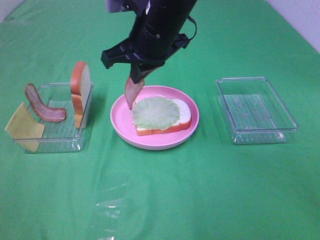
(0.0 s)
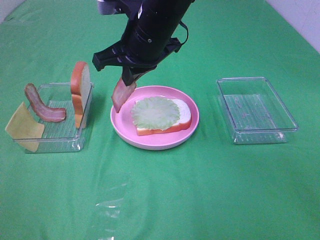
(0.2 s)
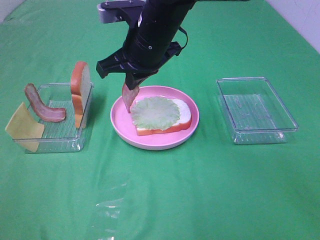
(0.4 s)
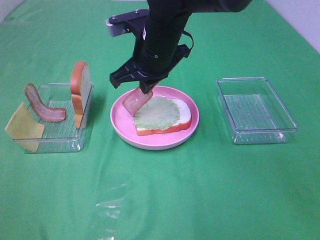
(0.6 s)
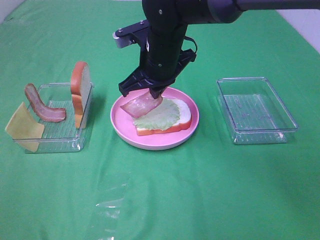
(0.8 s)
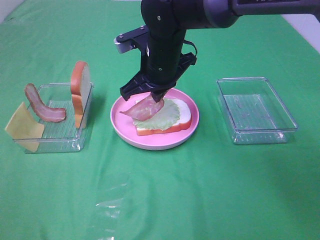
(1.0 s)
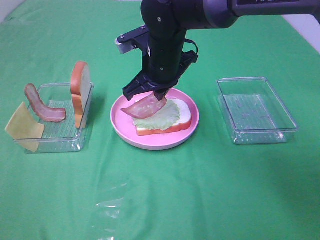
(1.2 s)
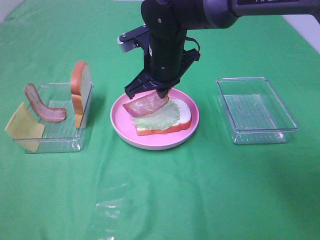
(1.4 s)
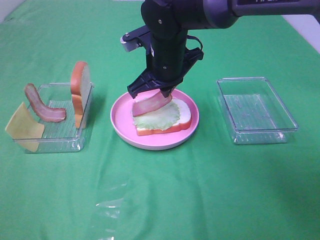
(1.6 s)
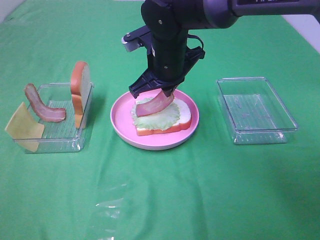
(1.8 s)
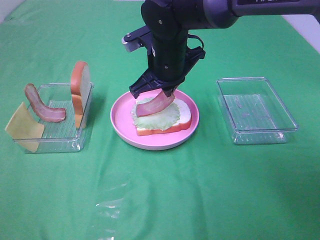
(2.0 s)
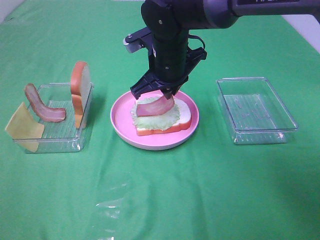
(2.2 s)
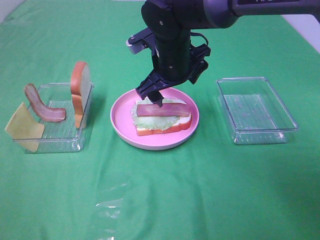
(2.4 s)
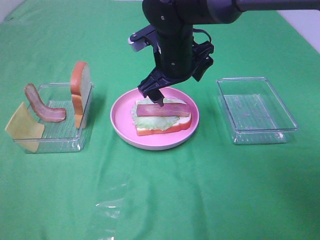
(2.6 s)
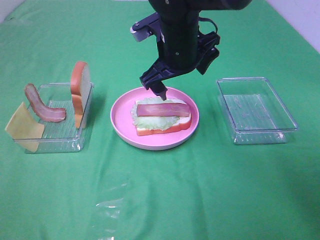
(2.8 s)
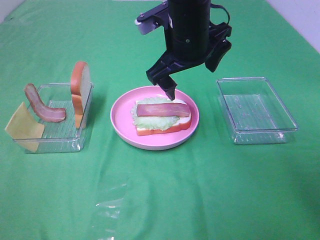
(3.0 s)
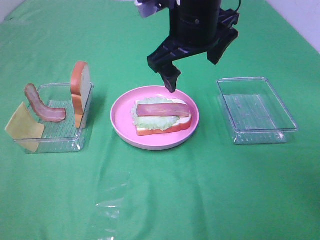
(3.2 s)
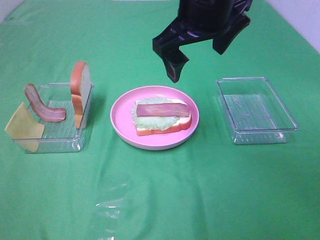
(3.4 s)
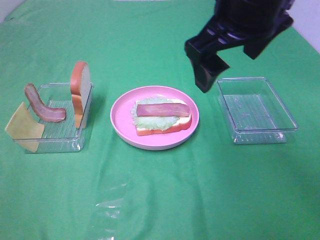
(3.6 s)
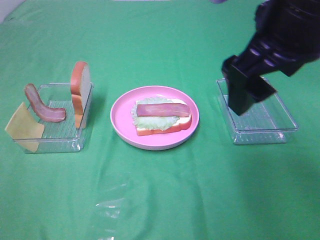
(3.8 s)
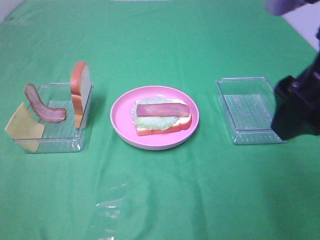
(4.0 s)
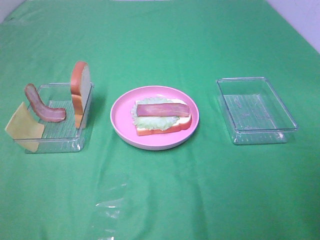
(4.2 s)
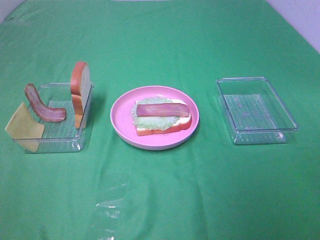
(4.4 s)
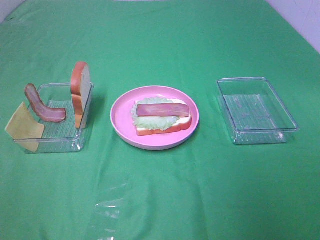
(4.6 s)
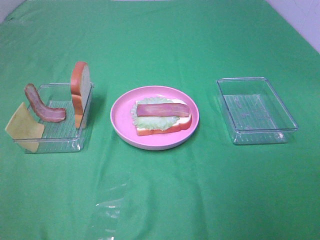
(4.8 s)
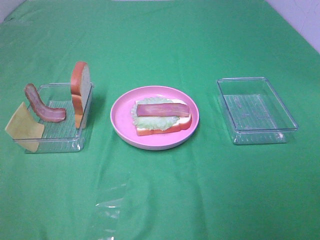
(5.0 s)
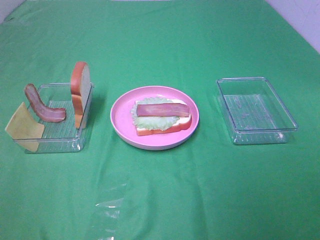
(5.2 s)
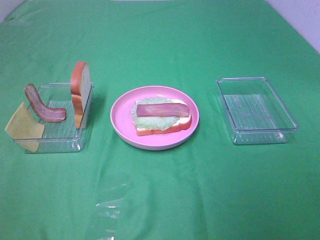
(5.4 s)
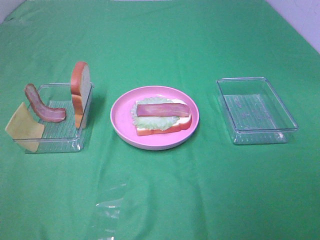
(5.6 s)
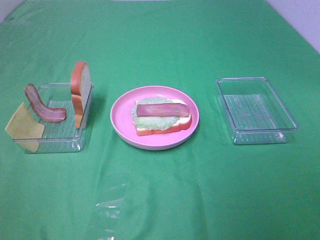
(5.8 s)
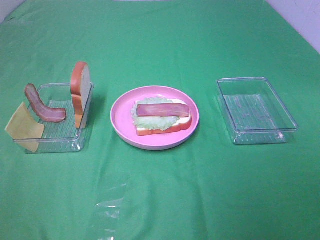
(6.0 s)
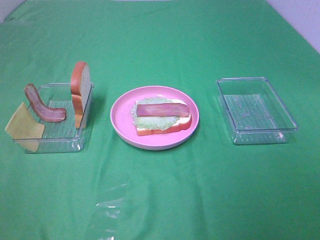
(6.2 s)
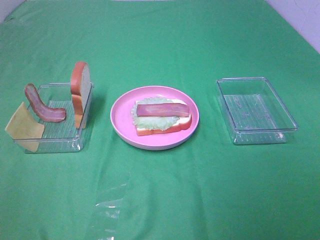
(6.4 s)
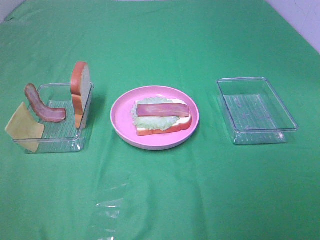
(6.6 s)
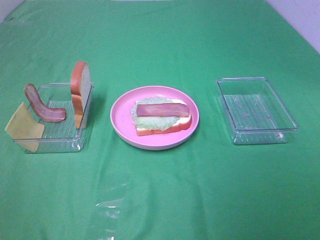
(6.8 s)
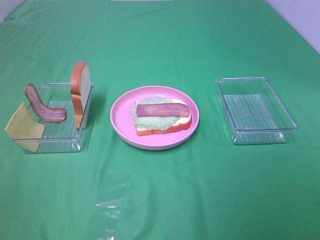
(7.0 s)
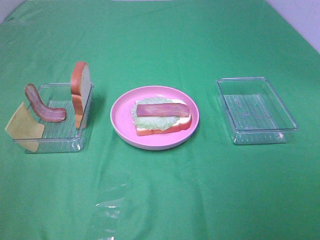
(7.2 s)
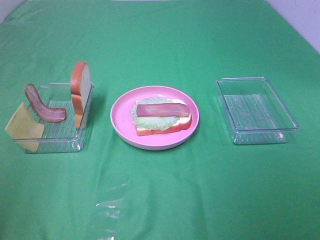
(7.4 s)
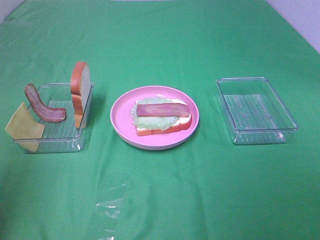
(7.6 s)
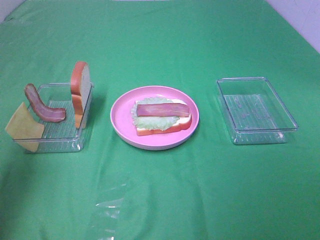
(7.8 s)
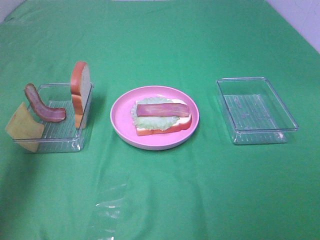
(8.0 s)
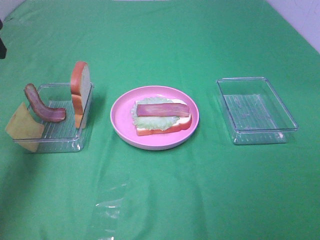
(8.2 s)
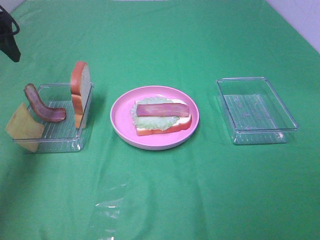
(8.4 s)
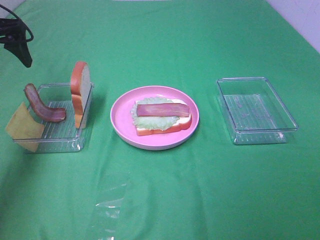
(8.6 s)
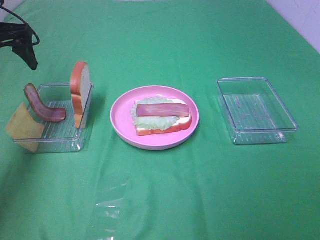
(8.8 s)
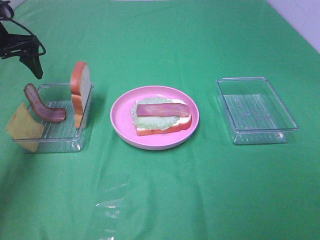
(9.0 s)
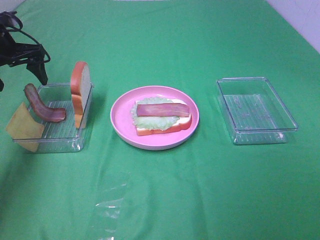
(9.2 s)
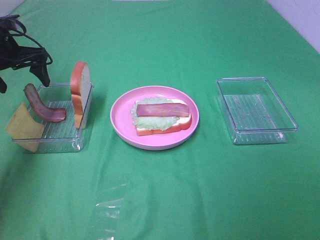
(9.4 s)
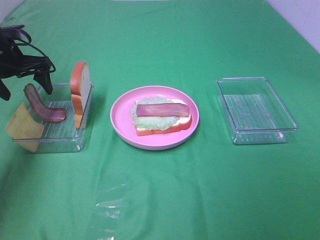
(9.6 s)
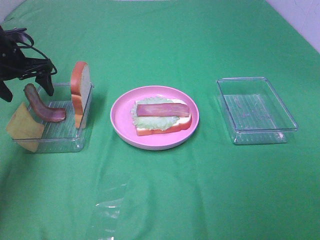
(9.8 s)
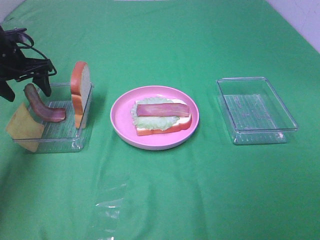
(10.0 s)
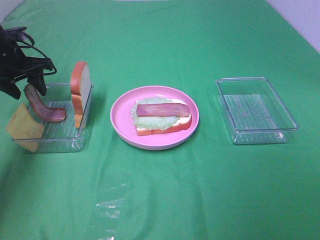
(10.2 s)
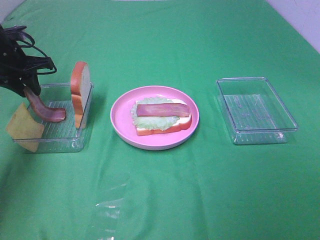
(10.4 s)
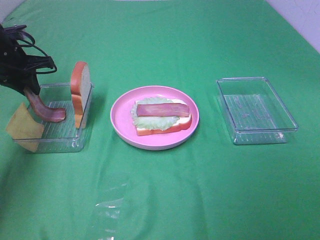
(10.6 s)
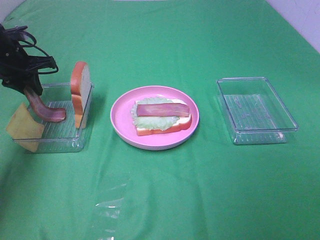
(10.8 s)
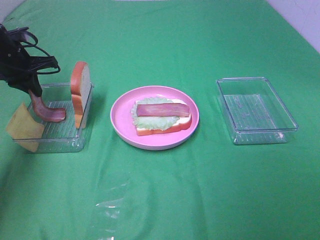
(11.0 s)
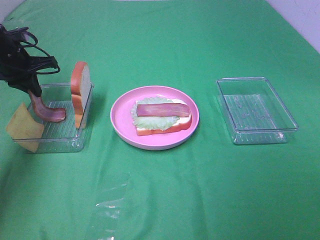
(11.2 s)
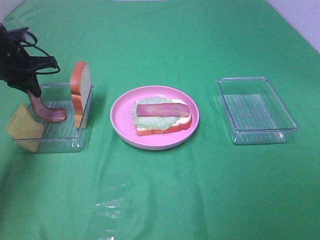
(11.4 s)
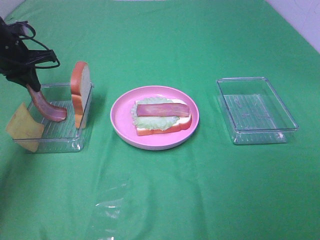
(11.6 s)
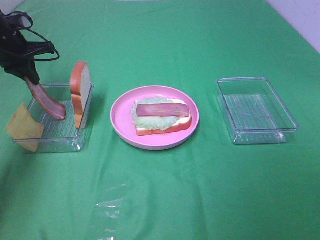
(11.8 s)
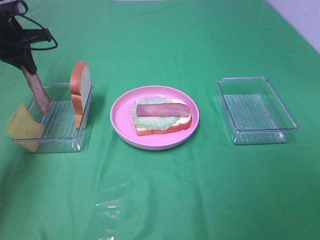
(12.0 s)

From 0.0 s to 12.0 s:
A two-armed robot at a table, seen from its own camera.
Task of the whole recording: Make sandwiches.
Step, from 0.0 s to 2.2 s: Right hand:place bacon on lettuce slice.
Step, from 2.4 s to 11.2 s: Left hand:grab the bacon.
From 0.0 s to 1.6 s: The right gripper travels downward by approximately 5 cm.
From 1.6 s to 3.0 s: The right gripper heads upward, covering approximately 5 cm, and opens.
From 3.0 s to 4.4 s: The right gripper moves backward and to the right, some 35 cm.
From 6.0 s to 7.6 s: The left gripper heads forward, covering approximately 15 cm.
From 7.6 s to 9.0 s: The left gripper heads forward, covering approximately 30 cm.
From 9.0 s to 10.4 s: The left gripper shifts roughly 5 cm downward, and closes up.
From 10.4 s to 12.0 s: The left gripper is displaced upward by some 5 cm.

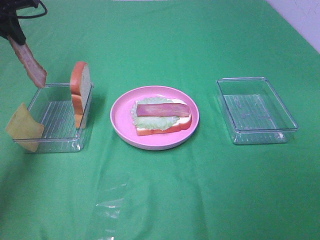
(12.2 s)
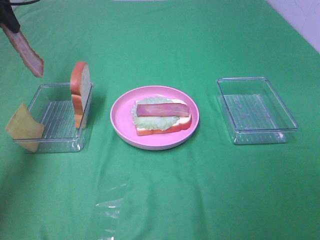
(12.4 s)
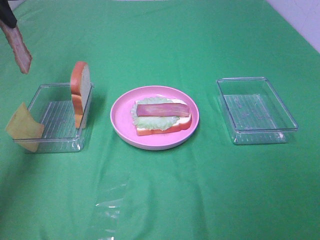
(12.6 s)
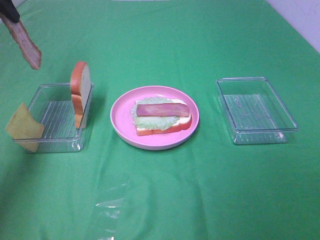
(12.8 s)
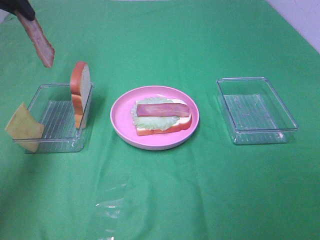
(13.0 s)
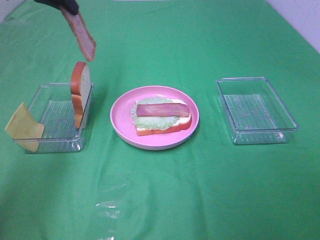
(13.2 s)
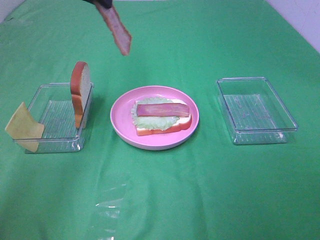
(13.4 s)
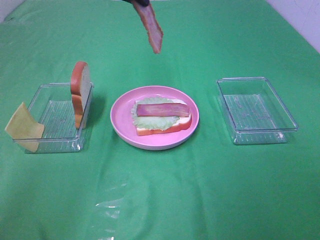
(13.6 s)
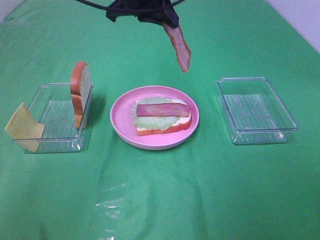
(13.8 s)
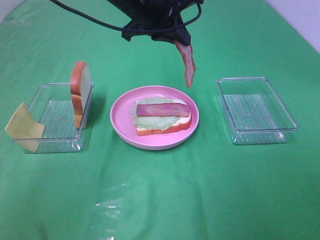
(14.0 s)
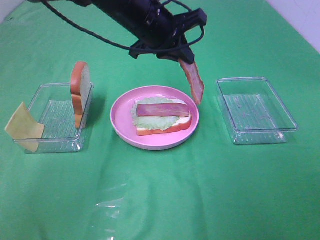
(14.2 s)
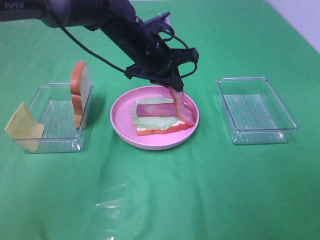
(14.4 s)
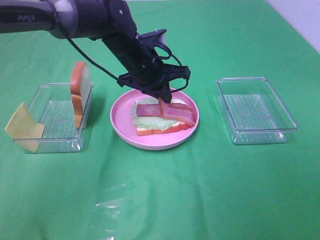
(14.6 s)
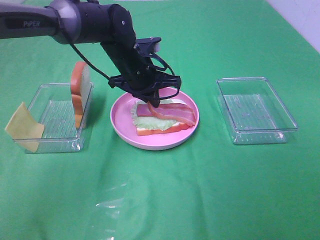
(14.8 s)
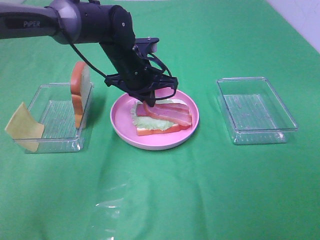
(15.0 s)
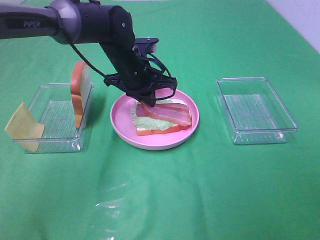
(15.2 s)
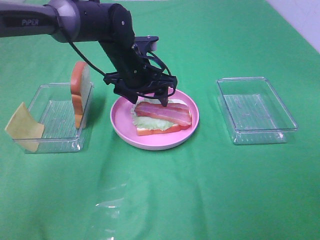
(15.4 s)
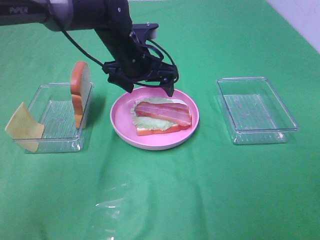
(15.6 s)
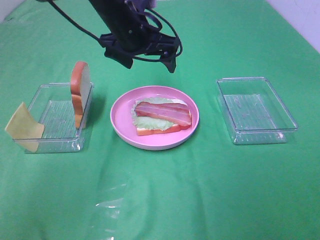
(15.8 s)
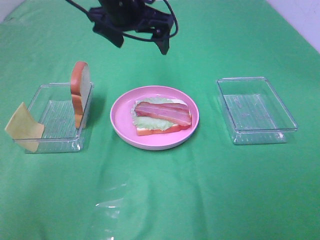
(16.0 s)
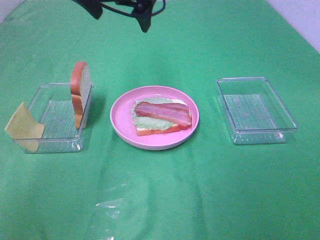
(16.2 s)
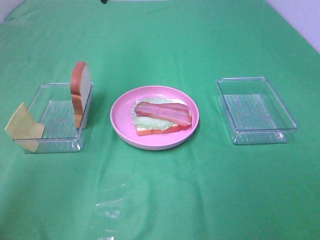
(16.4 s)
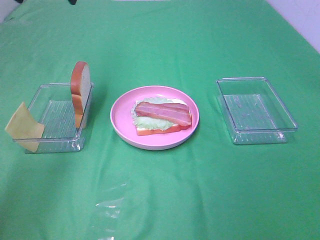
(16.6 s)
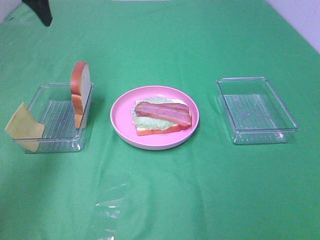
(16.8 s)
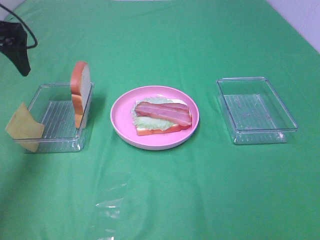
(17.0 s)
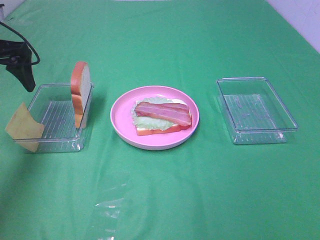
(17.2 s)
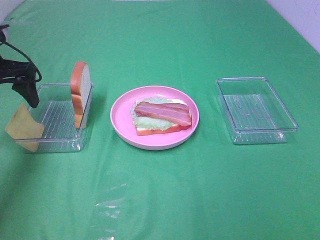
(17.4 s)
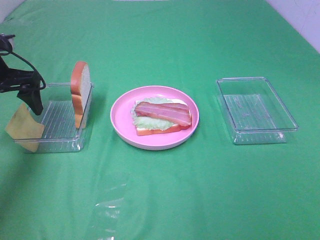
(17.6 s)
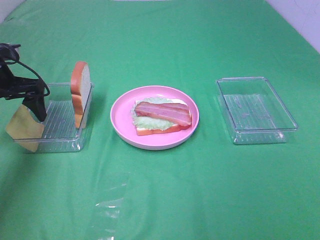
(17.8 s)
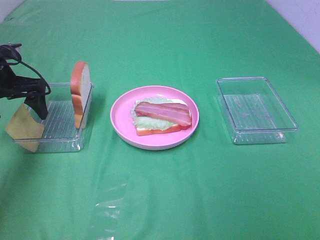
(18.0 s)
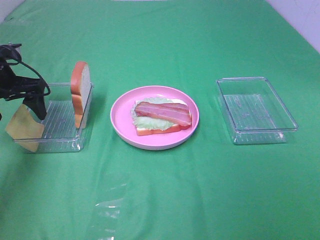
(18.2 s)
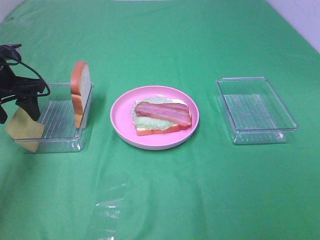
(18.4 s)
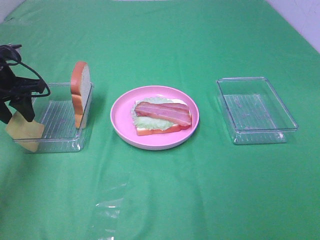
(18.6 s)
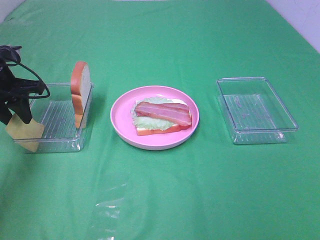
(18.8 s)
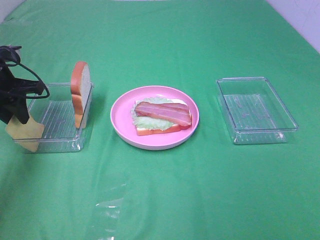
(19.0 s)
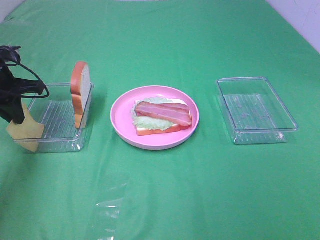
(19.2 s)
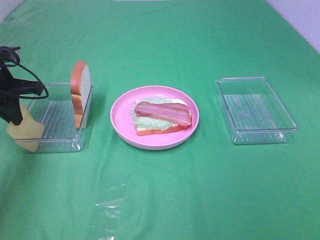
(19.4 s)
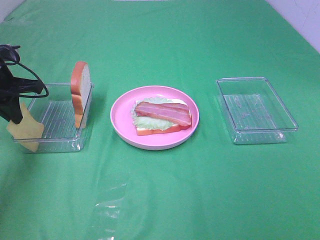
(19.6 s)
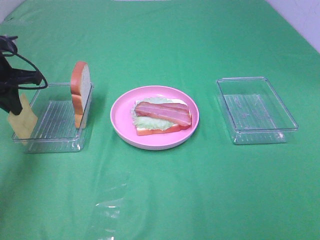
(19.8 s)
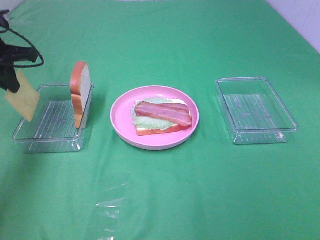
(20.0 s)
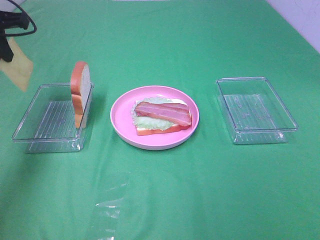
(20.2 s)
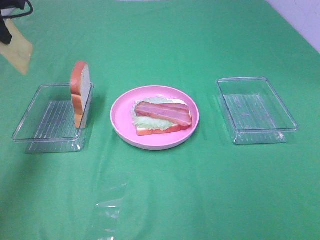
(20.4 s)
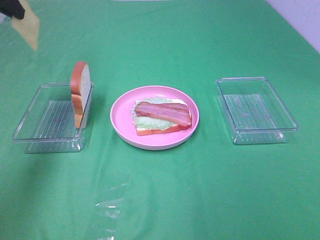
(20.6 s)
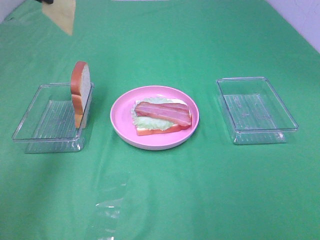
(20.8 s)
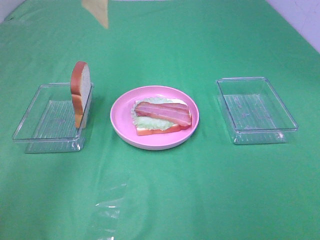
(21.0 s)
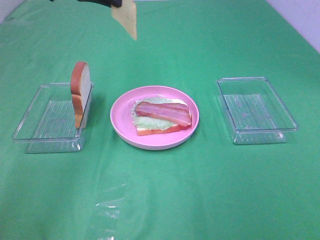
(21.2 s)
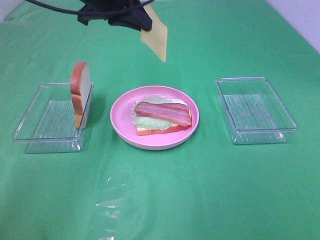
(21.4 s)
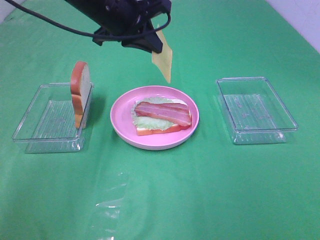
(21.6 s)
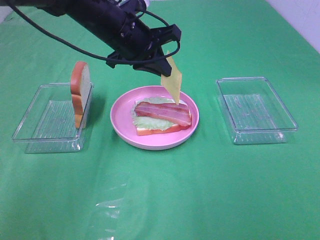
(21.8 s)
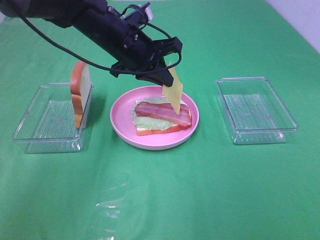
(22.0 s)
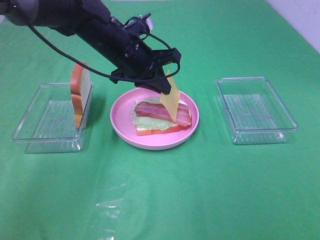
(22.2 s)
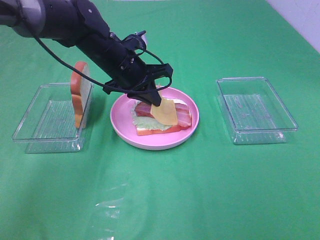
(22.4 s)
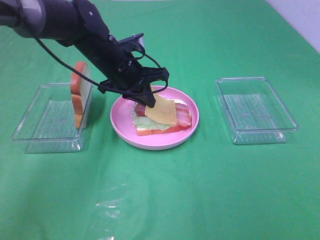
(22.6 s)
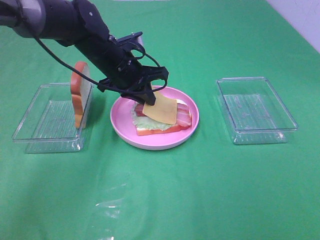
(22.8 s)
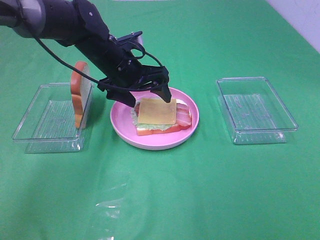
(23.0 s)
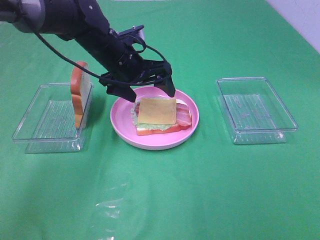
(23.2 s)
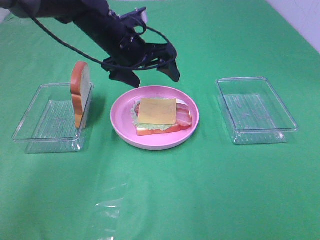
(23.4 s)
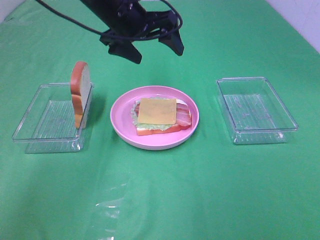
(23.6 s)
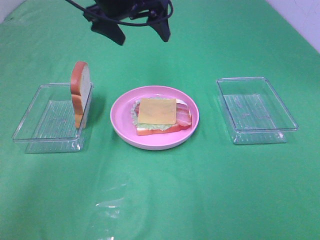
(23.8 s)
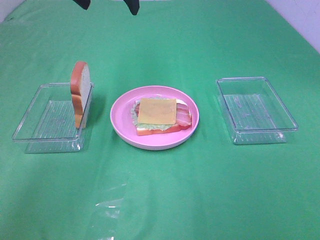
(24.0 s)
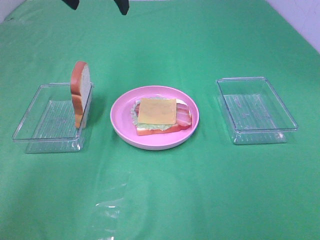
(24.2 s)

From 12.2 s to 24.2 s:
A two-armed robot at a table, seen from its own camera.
Task of the whole recording: Make sandwiches.
Step, from 12.2 s to 15.4 s: Left hand:place bacon on bacon.
Step, from 15.6 s to 19.2 s: Left hand:grab the cheese slice.
Step, from 19.4 s to 23.0 s: Left hand:place the cheese slice on top of the bacon.
From 12.2 s to 13.8 s: The left gripper shifts approximately 25 cm to the right.
From 13.8 s to 15.2 s: The left gripper travels downward by roughly 15 cm.
From 15.2 s to 16.6 s: The left gripper travels upward and to the left by about 30 cm, and opens up.
From 16.6 s to 18.2 s: The left gripper travels downward by some 20 cm.
From 18.2 s to 19.8 s: The left gripper closes its fingers.
From 19.8 s to 21.2 s: The left gripper shifts some 20 cm to the right and upward.
From 21.2 s to 22.6 s: The left gripper is displaced downward by roughly 20 cm.
From 22.6 s to 24.2 s: The left gripper heads upward, covering approximately 20 cm, and opens up.
